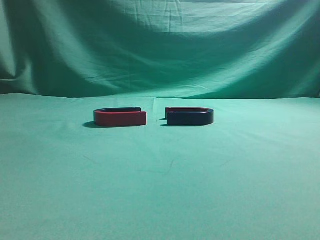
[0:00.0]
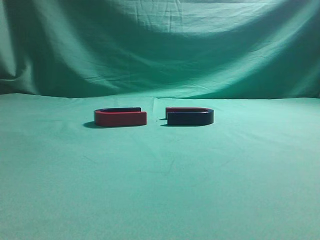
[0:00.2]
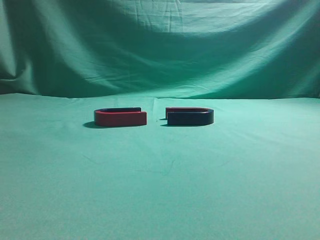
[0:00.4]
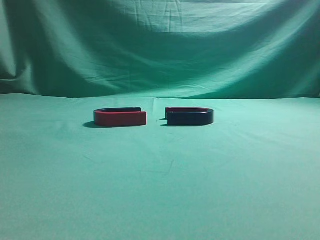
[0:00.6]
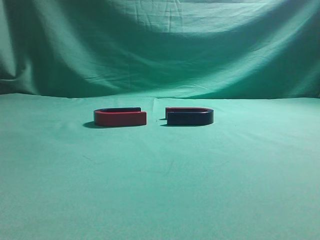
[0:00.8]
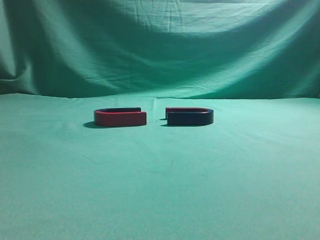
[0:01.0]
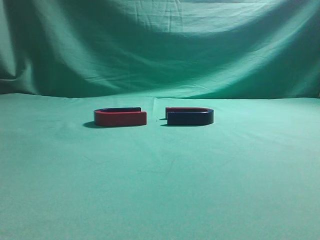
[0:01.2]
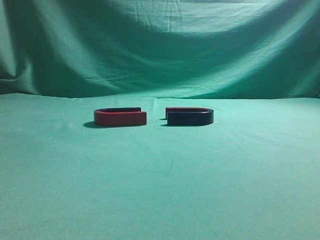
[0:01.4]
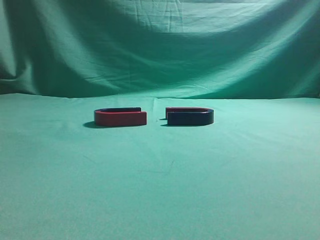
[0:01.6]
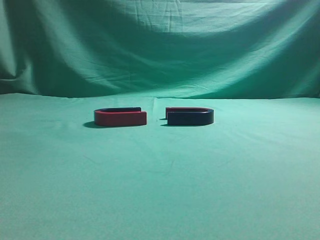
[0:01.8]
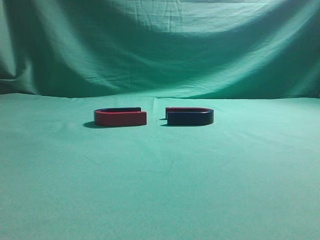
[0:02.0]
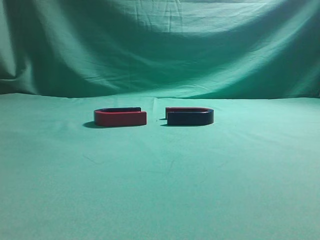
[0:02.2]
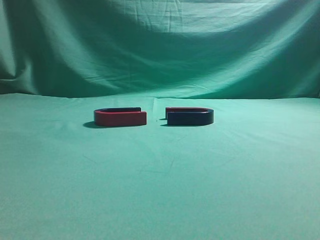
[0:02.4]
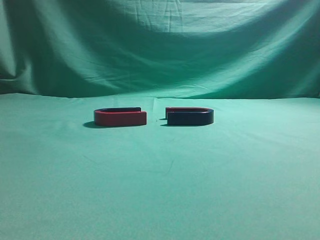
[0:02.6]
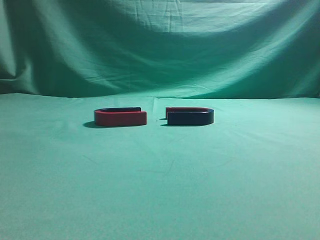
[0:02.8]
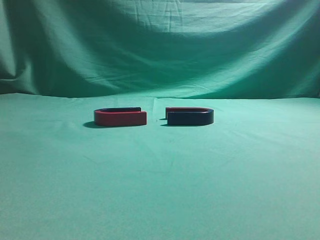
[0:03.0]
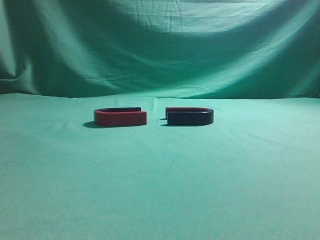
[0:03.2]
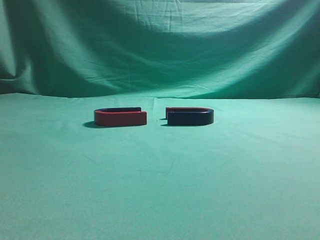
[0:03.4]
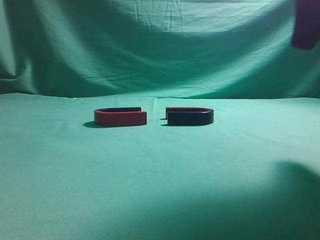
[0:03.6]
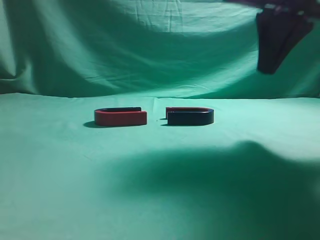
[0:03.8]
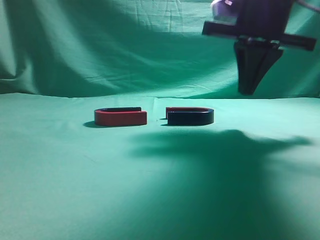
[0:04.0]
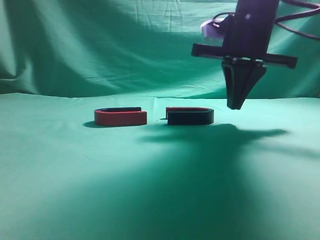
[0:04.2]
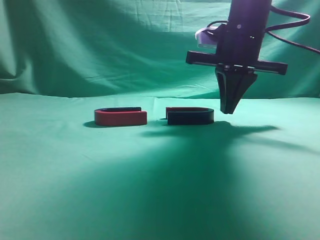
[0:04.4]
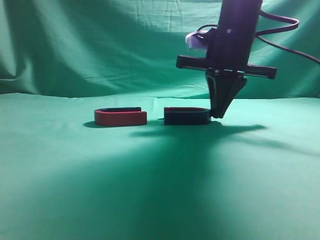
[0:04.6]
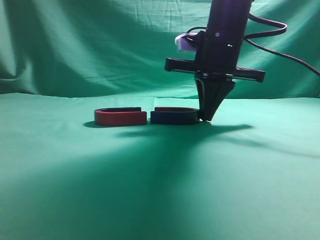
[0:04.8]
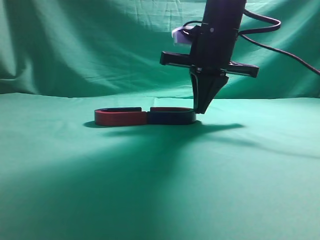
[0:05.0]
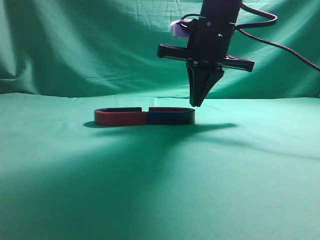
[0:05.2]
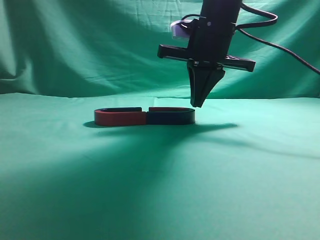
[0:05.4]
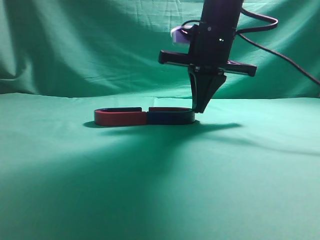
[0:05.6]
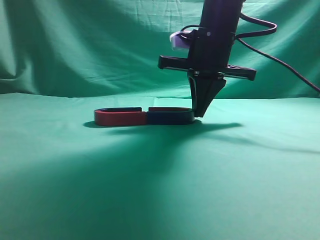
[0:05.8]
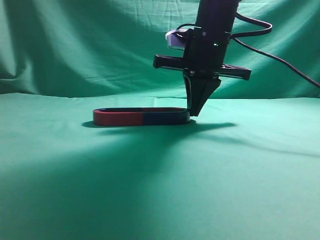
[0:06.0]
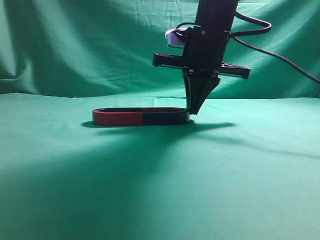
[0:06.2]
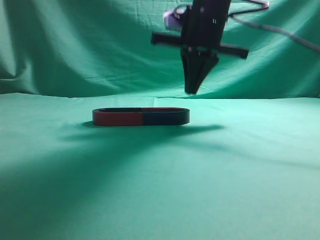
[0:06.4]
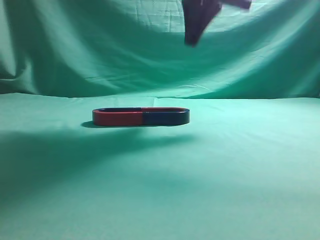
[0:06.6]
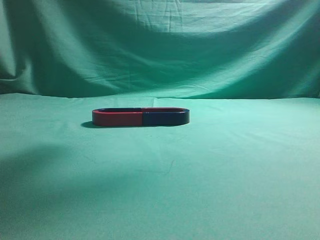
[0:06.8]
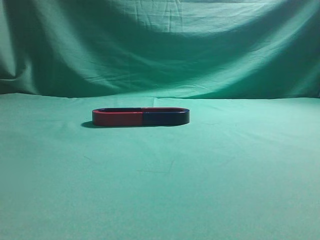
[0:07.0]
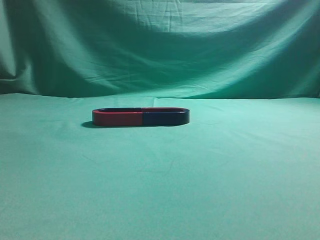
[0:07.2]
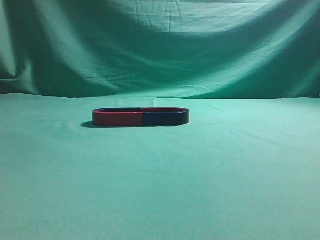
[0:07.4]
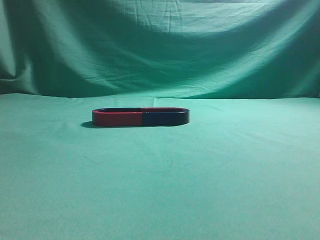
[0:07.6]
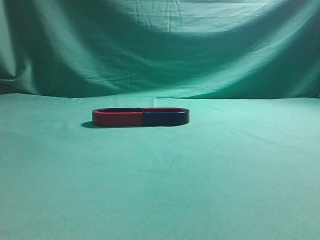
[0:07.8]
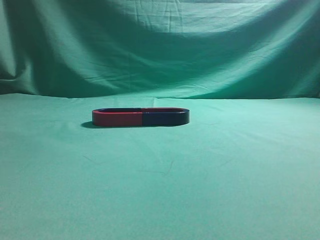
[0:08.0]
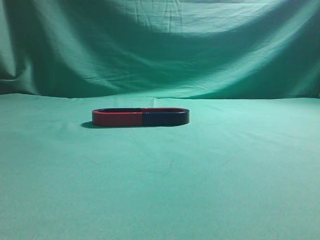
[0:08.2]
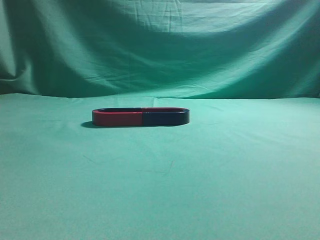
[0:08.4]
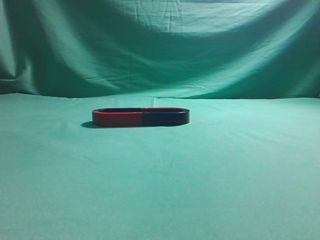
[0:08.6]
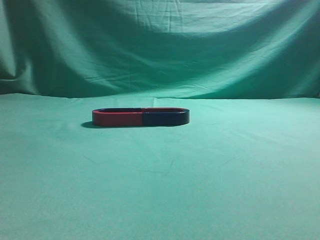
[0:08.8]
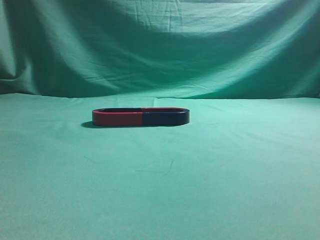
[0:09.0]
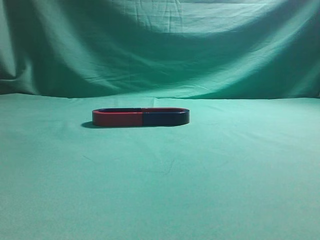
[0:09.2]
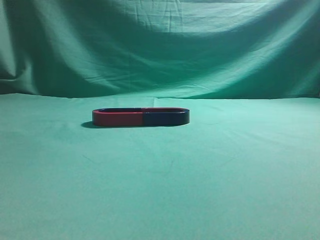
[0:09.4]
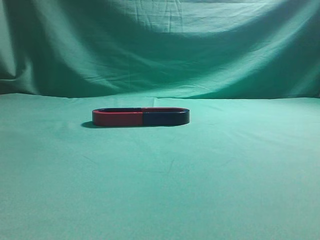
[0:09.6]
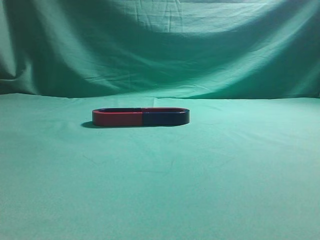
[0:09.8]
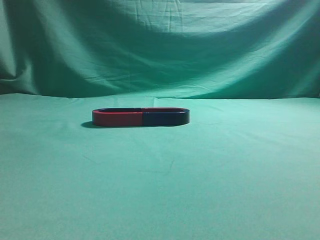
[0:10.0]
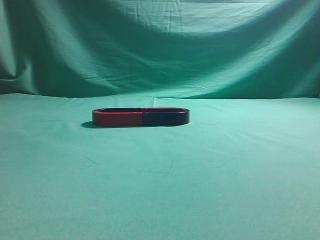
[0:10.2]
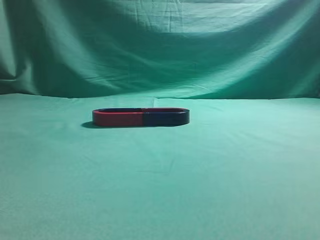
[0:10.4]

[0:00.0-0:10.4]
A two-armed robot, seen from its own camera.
Task of the whole recording: push the magnet on the table from its original position to another position.
Step, 0:00.0 to 0:06.2: Push the magnet on the right to connect the magnet on the left.
0:03.0 to 0:04.4: The right gripper moves forward, to the left and downward, some 30 cm.
0:06.0 to 0:07.4: The right gripper is displaced upward and backward by some 35 cm.
